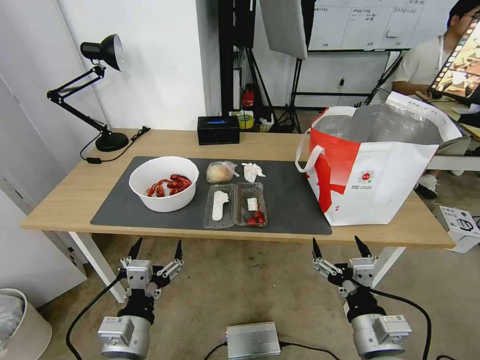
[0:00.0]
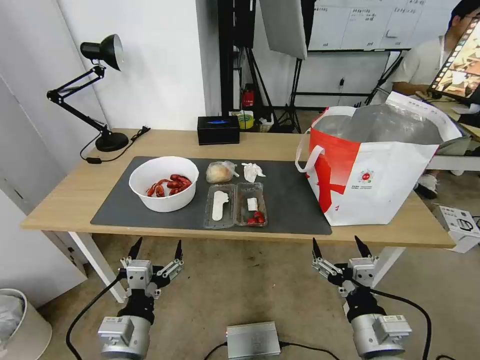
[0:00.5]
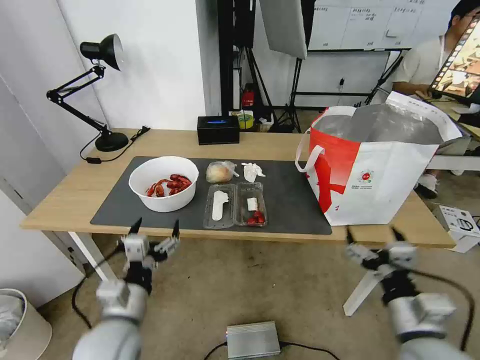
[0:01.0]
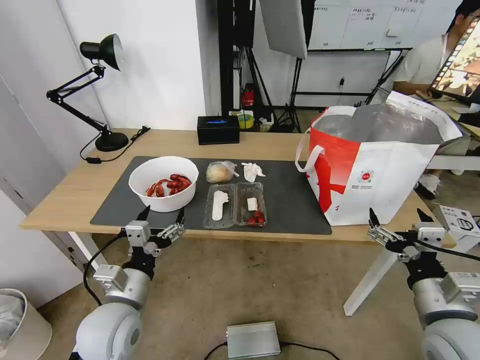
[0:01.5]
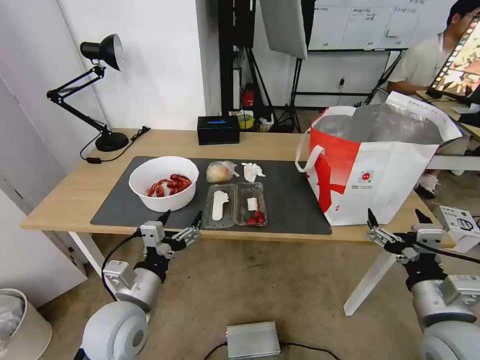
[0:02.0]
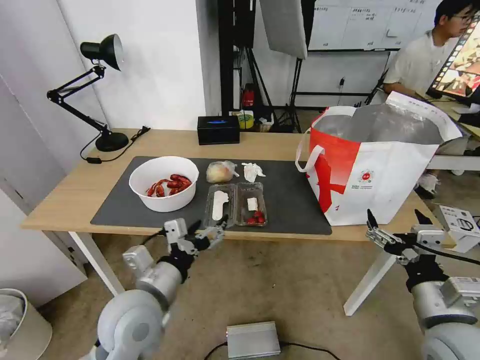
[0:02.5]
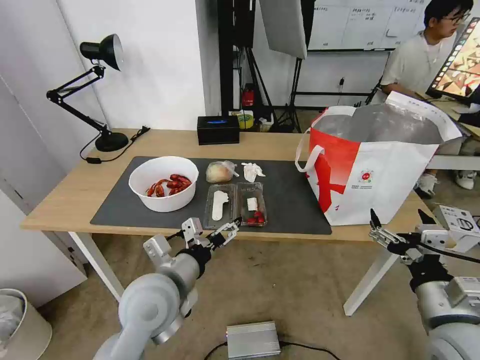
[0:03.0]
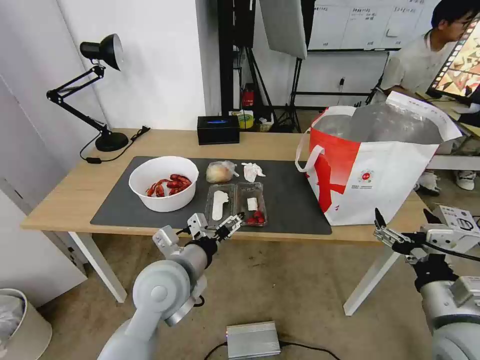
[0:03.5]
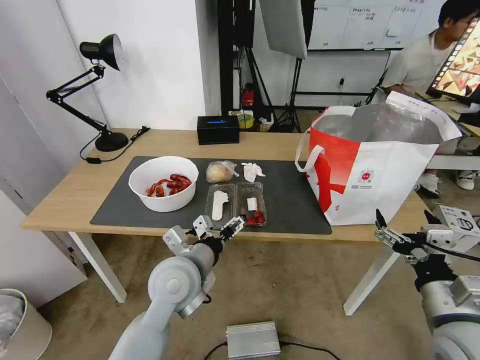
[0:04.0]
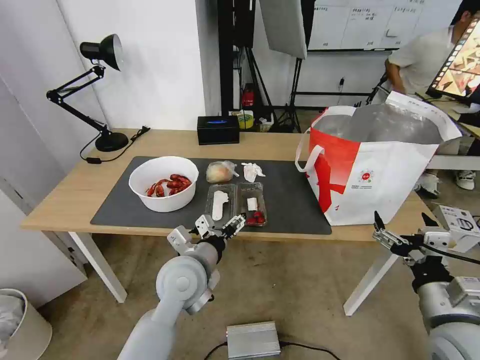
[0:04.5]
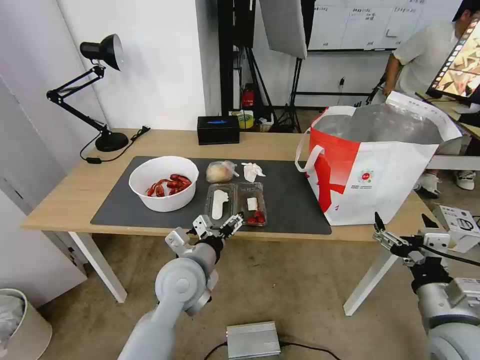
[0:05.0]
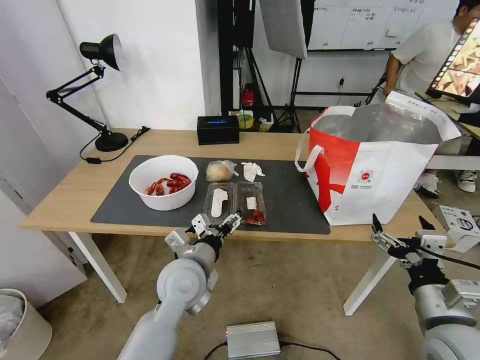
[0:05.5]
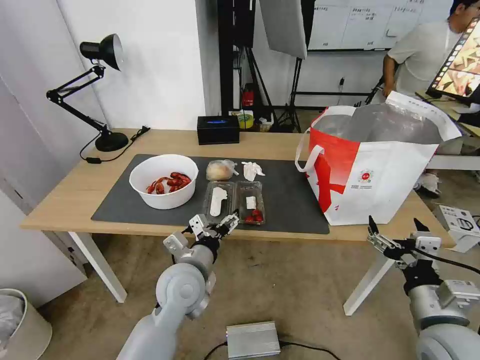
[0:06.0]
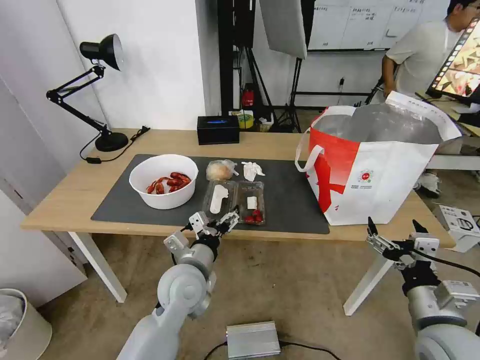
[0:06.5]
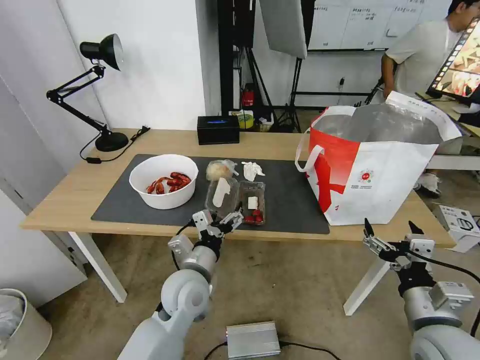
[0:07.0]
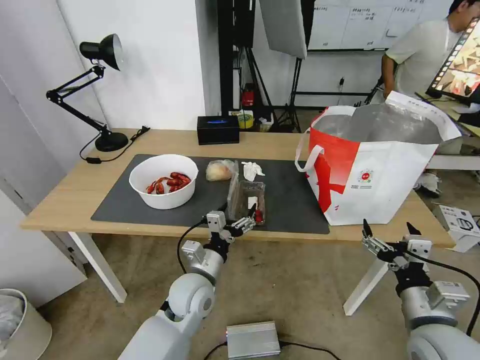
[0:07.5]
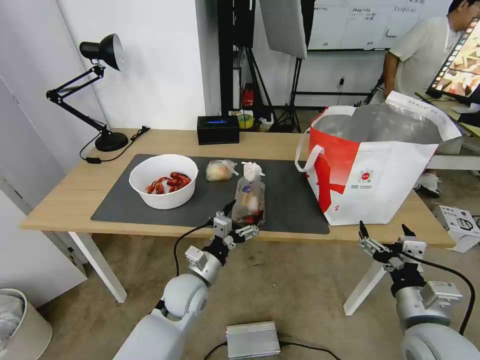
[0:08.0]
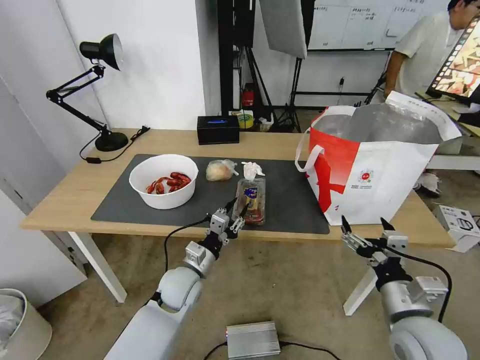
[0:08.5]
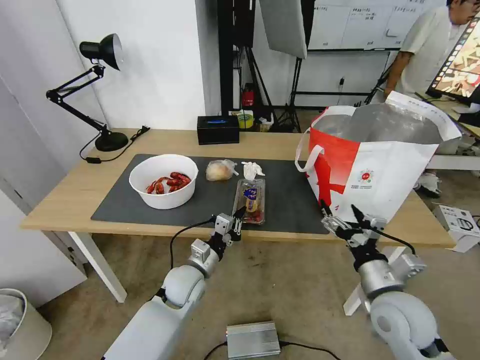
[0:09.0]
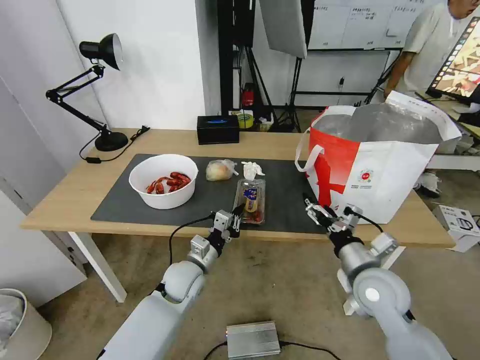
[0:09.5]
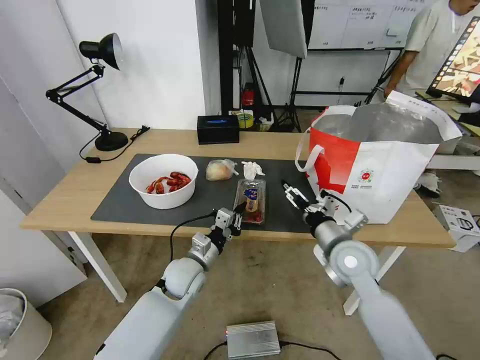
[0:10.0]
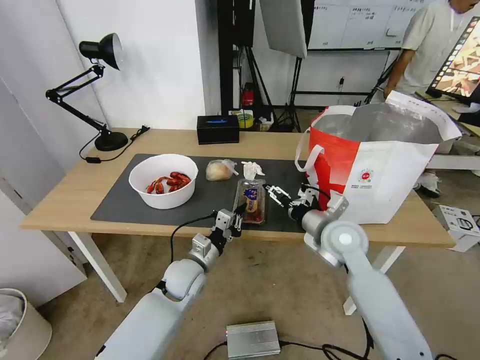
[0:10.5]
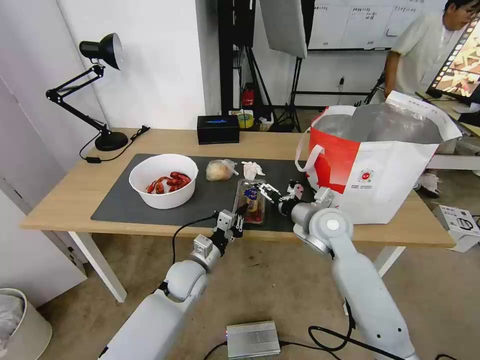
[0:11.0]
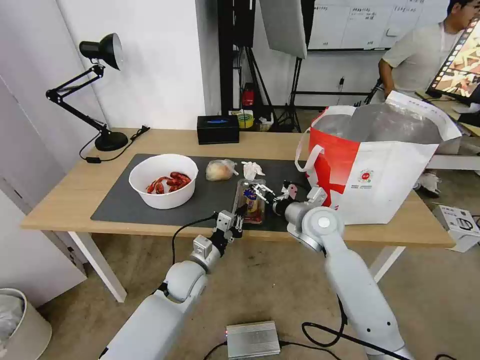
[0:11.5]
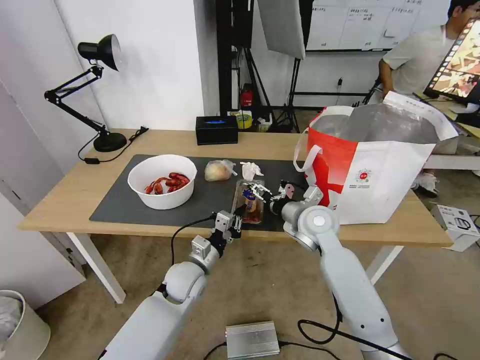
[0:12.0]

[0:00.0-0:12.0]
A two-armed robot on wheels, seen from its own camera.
Task of the whole recording: Pick up the trash from the table and place it into the takeout bag.
0:02.0 to 0:04.0: The left gripper heads to the right and forward, covering about 10 cm.
0:04.0 to 0:06.0: The grippers make only small movements.
0:06.0 to 0:08.0: The left gripper goes some 10 cm downward.
0:08.0 to 0:10.0: The right gripper travels forward and to the left by approximately 20 cm, while the left gripper closes up.
0:10.0 to 0:12.0: The right gripper is displaced forward and to the left by about 10 cm.

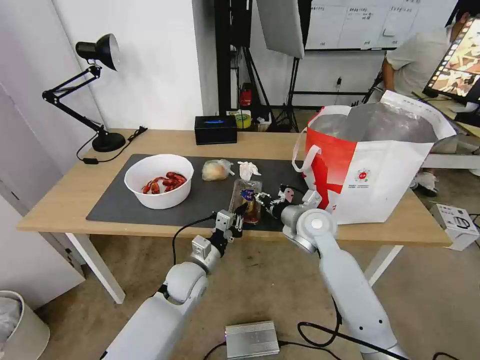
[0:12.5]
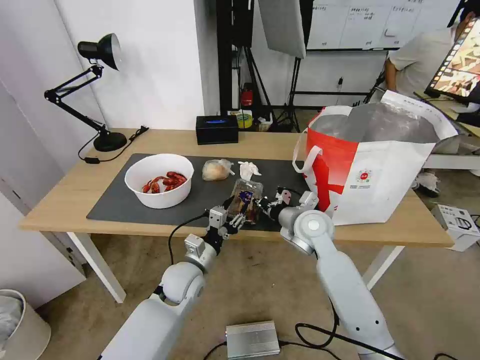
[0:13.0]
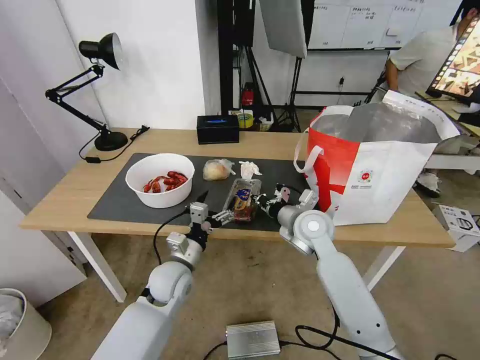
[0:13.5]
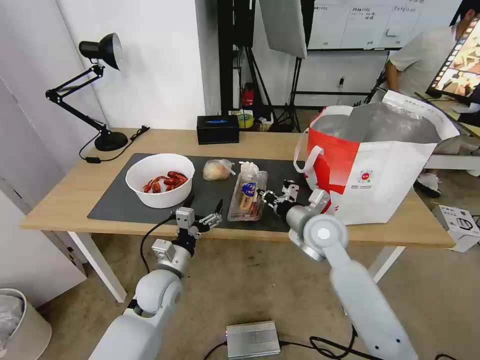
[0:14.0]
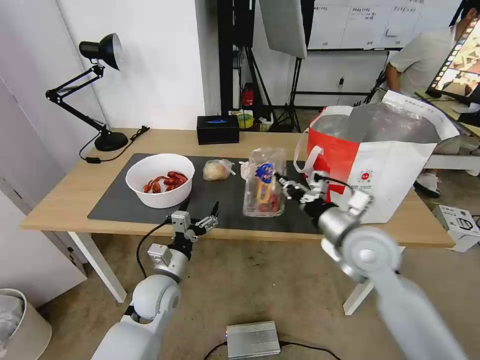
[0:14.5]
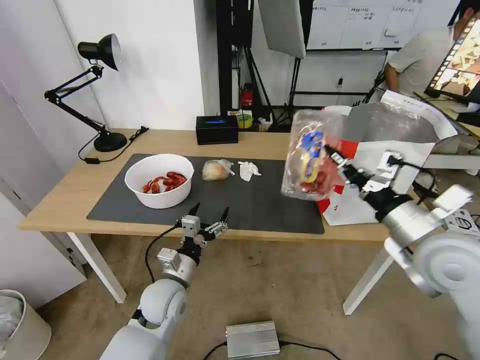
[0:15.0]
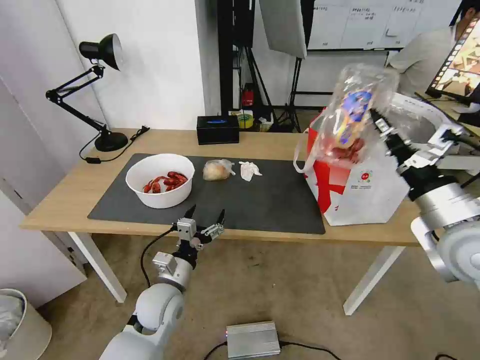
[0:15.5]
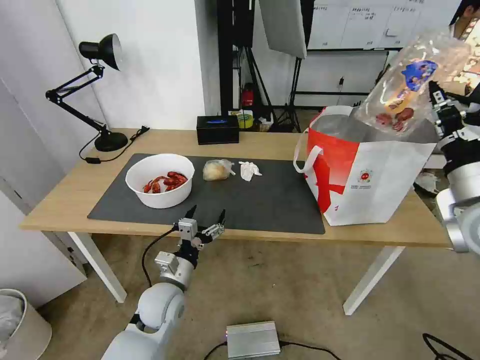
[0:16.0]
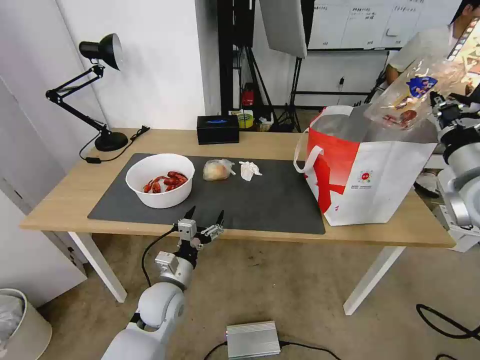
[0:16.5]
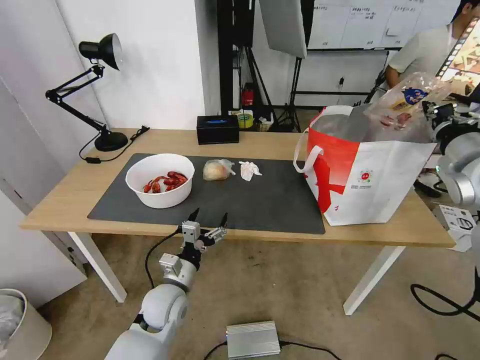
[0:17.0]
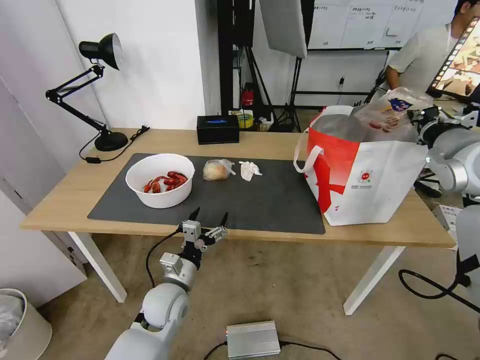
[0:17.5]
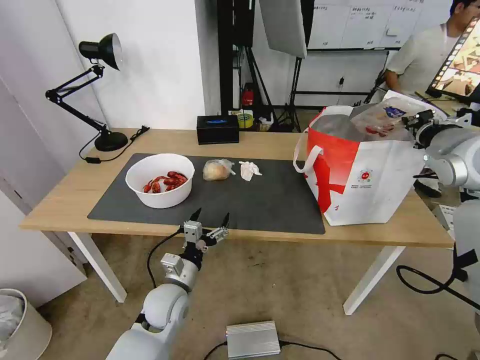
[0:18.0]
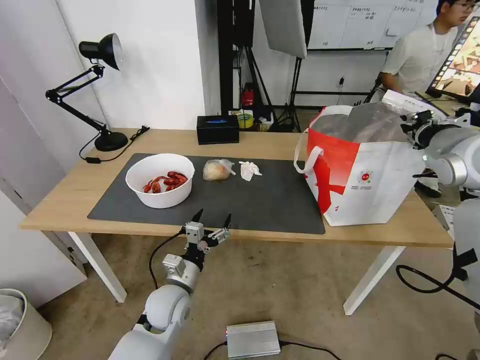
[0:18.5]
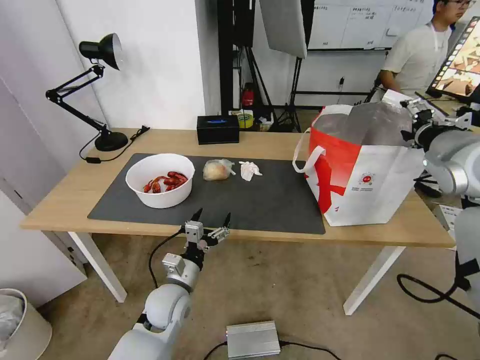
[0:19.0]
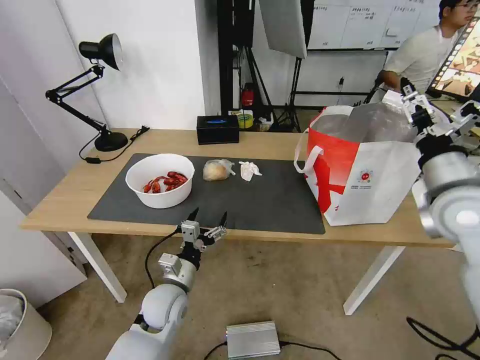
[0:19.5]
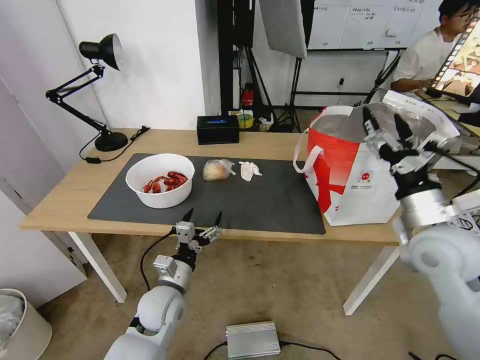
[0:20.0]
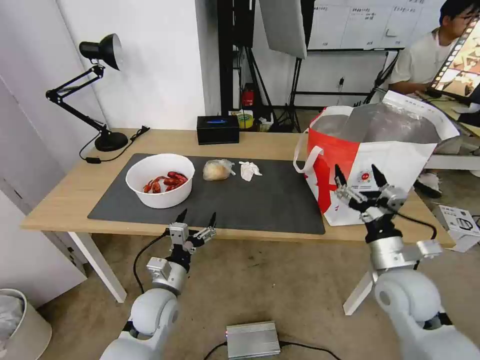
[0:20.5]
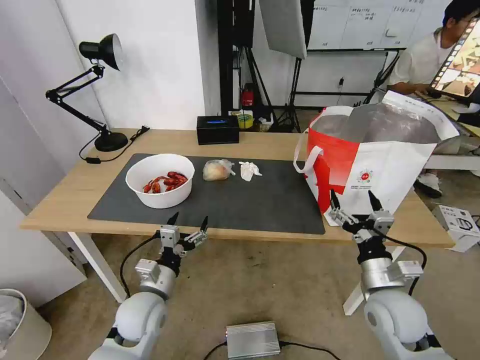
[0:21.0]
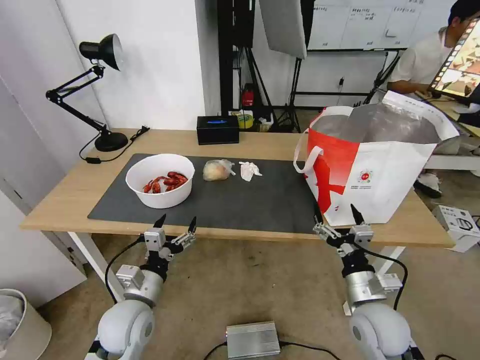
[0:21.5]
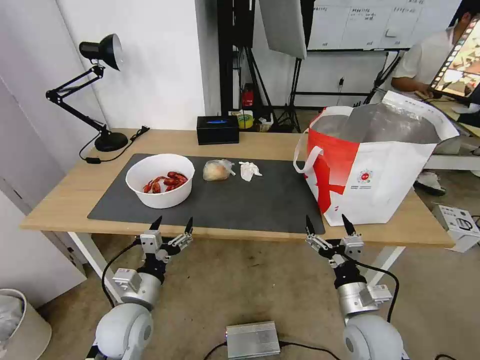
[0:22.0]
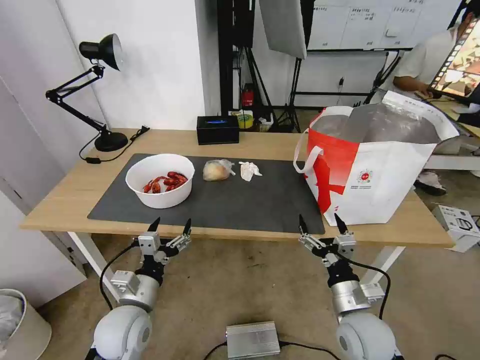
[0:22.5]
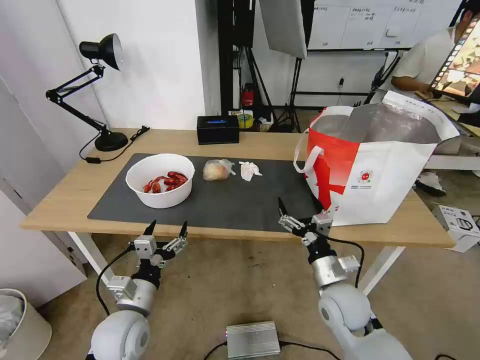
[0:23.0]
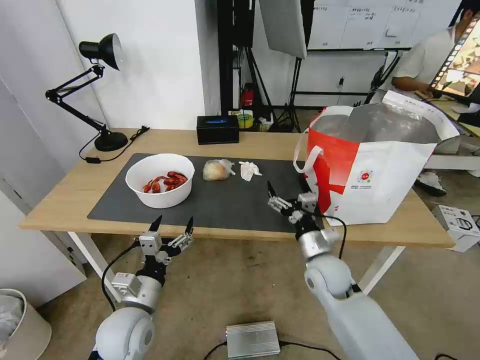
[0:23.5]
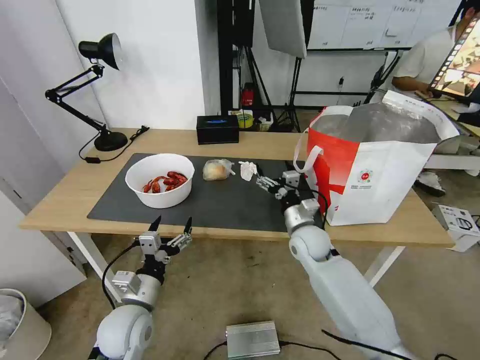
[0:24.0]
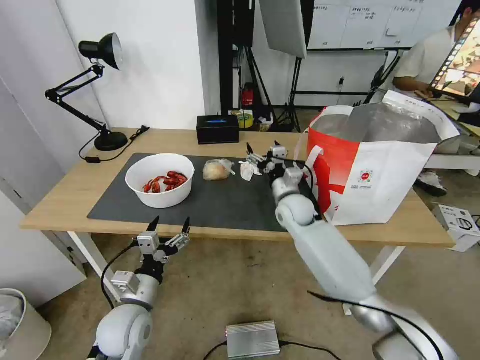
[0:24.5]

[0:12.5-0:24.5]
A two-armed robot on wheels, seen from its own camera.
Task of the whole recording: Pick up the trash from the table and place it into the takeout bag.
0:12.5 to 0:14.5: The right gripper heads backward, upward and to the right, covering some 10 cm, and closes. The left gripper is displaced to the left by roughly 5 cm, and opens its fingers.
0:14.5 to 0:16.5: The right gripper goes some 20 cm to the right and upward.
0:16.5 to 0:18.5: The right gripper heads forward, covering roughly 5 cm.
0:18.5 to 0:20.5: The right gripper is displaced downward and backward by roughly 25 cm, and opens.
0:20.5 to 0:22.5: The left gripper shifts by approximately 5 cm. Meanwhile the right gripper moves downward, to the left and backward, roughly 15 cm.
0:22.5 to 0:24.5: The right gripper goes about 30 cm forward.

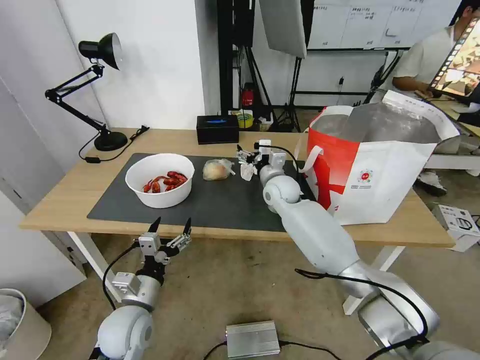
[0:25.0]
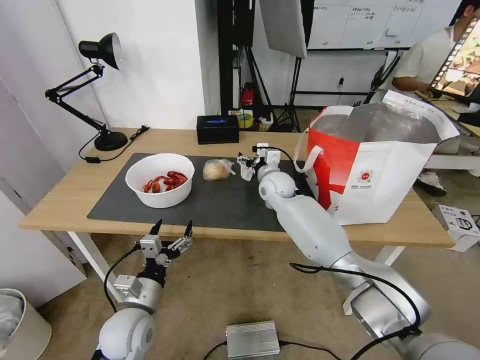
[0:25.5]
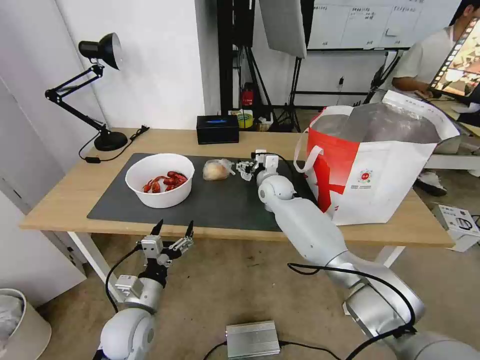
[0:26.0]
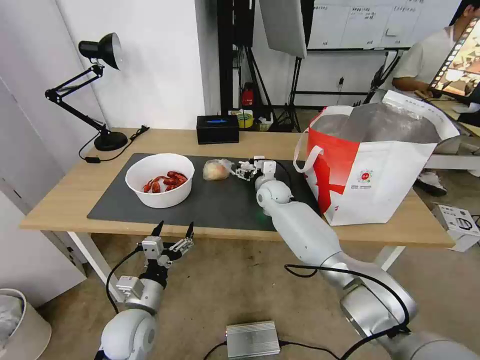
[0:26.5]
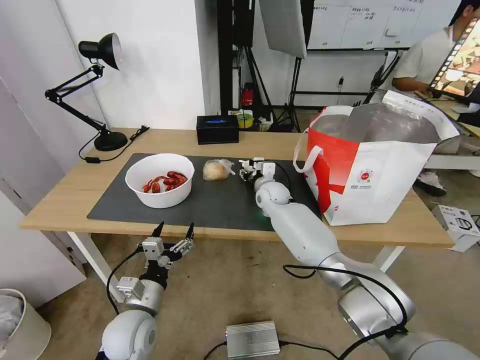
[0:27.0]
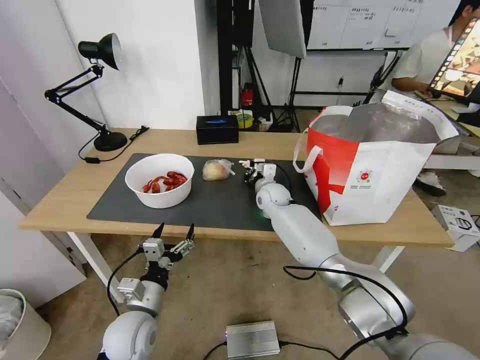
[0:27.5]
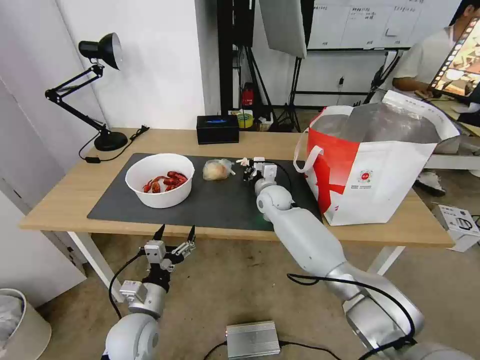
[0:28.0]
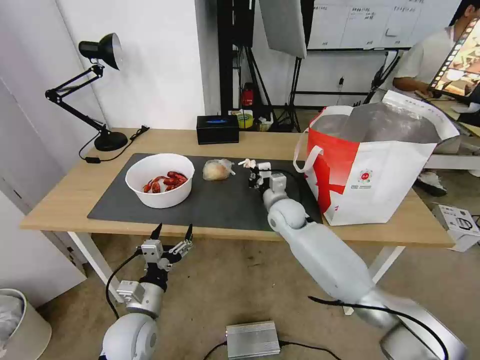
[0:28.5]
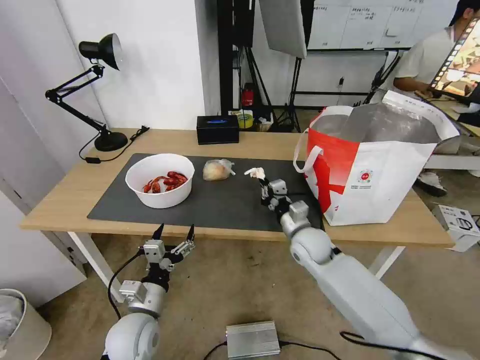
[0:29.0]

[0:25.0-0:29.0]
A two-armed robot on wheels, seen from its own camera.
Task of the whole recording: Pick up the trash from the table and place it into the takeout bag.
0:25.0 to 0:27.0: The right gripper ends up some 5 cm from where it was, and closes.
0:27.0 to 0:29.0: The right gripper travels backward and to the right by roughly 20 cm, and closes.
